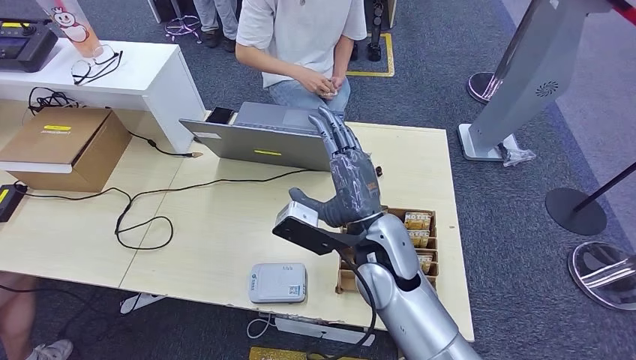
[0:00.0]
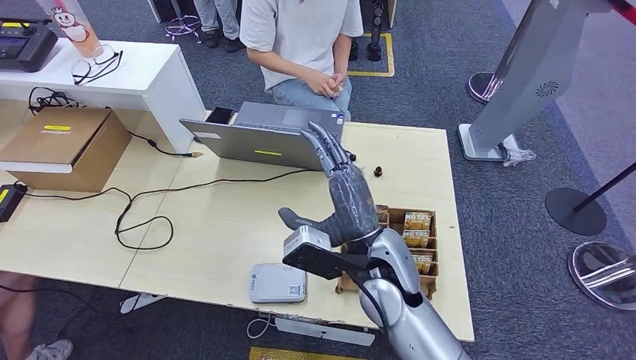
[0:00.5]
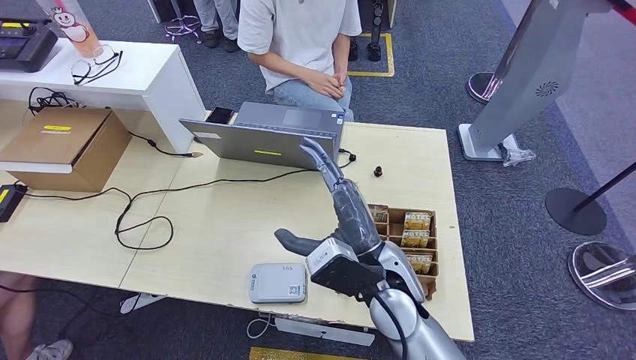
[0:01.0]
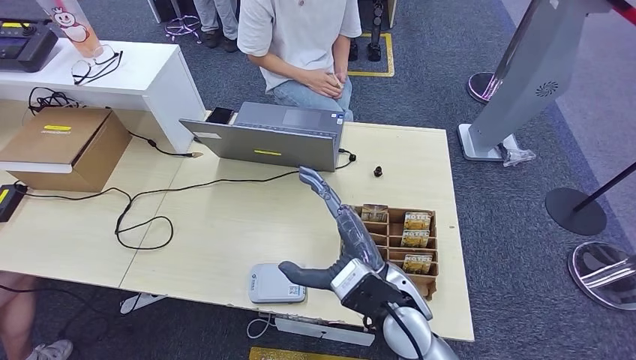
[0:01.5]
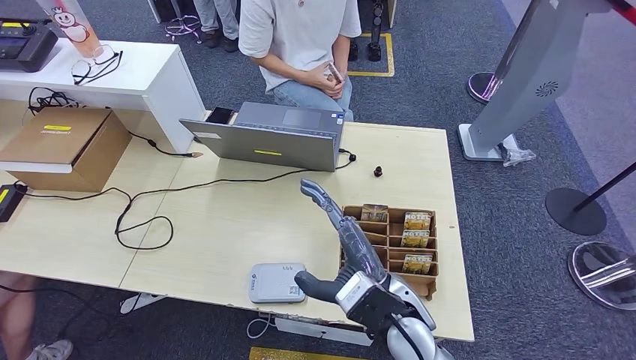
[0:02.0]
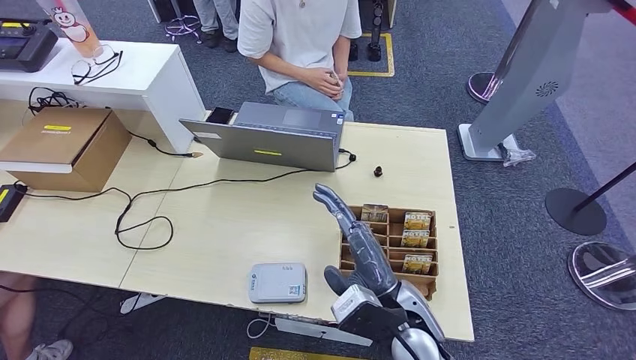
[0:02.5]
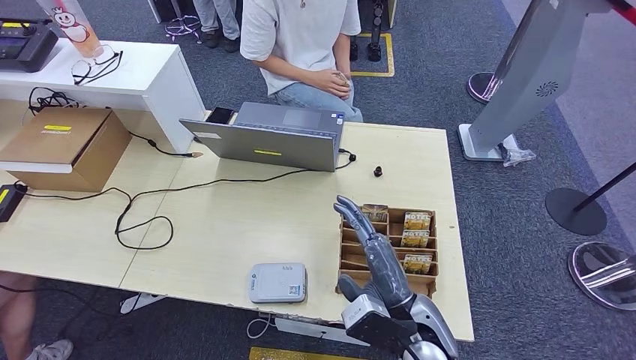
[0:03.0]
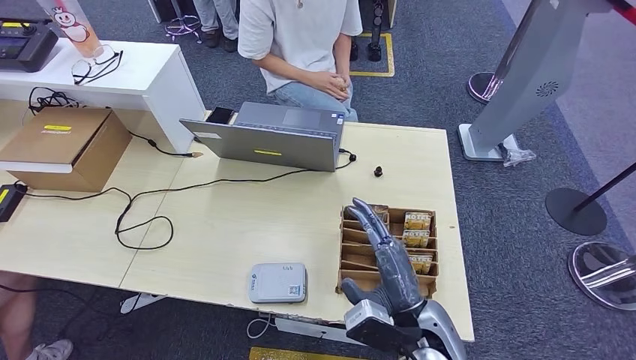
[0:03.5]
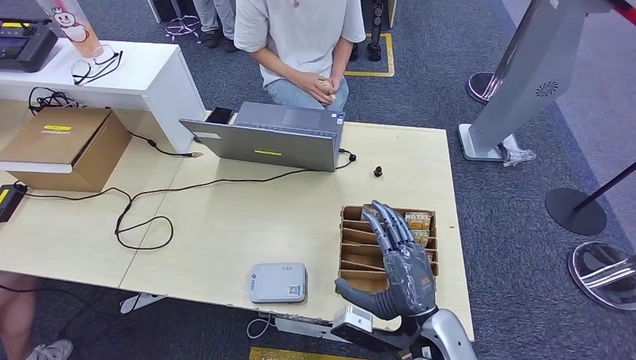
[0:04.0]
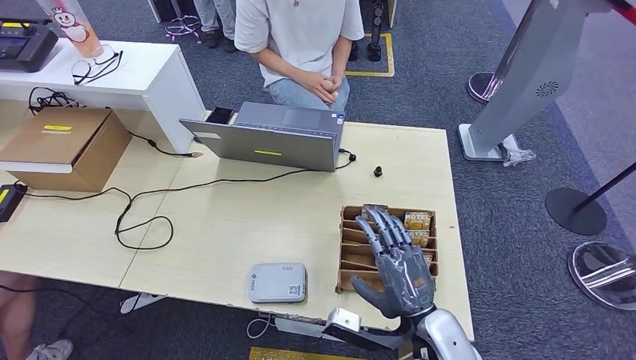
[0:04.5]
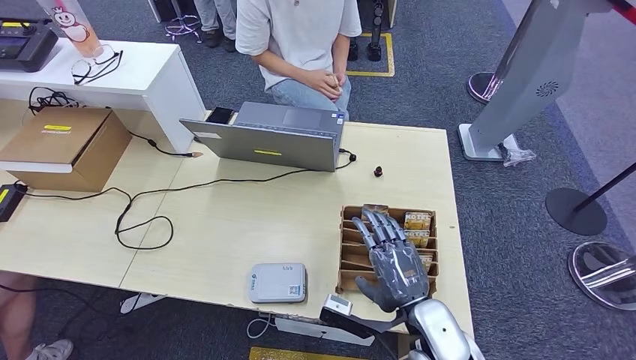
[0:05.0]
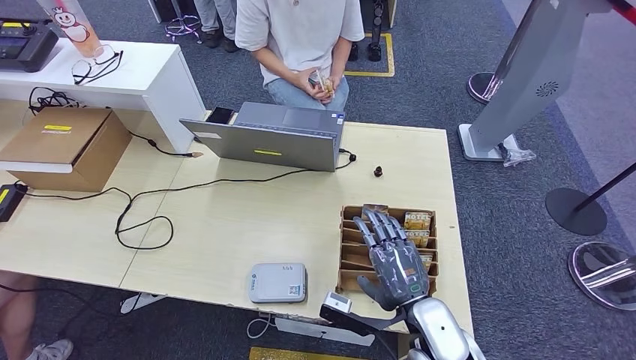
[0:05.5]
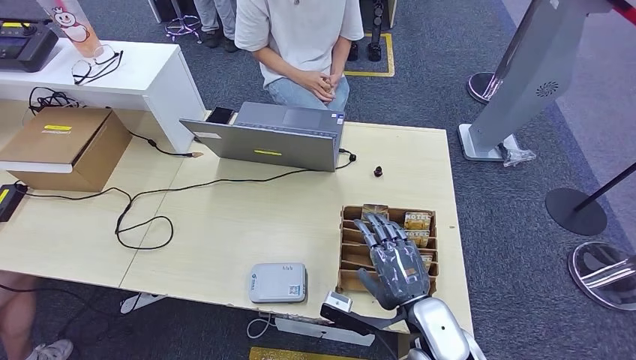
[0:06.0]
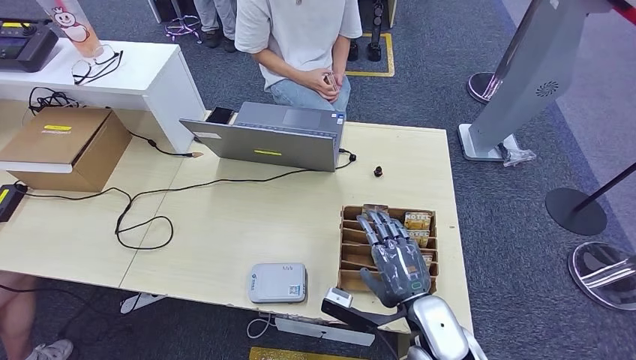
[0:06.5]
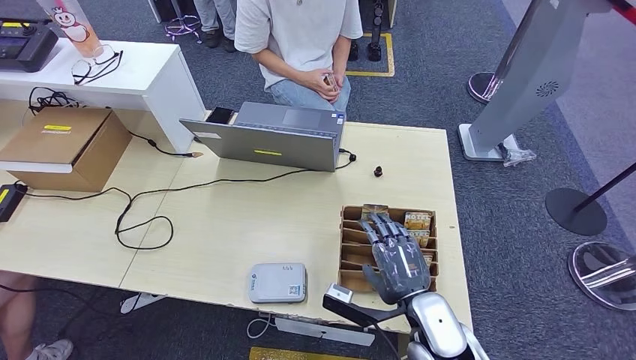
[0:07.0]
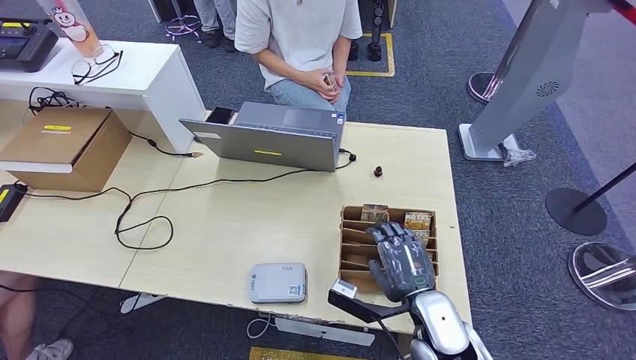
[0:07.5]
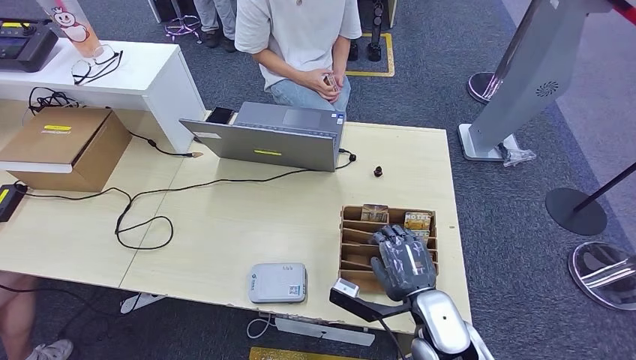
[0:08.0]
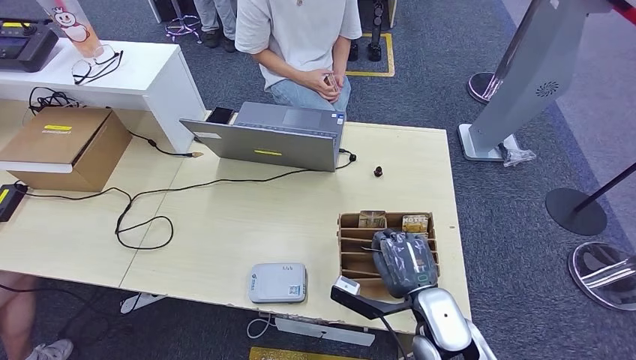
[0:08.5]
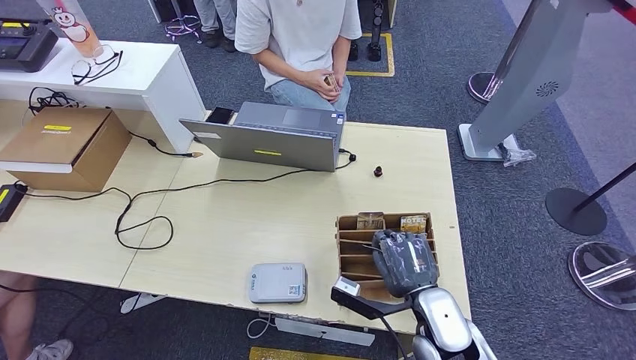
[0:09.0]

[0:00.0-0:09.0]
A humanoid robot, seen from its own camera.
0:00.0 to 0:02.0: The right hand heads backward, covering roughly 5 cm.
0:02.0 to 0:04.5: The right hand heads to the right and downward, covering some 10 cm.
0:04.5 to 0:07.0: There are only small adjustments of the hands.
0:07.0 to 0:09.0: The hands move only a little.

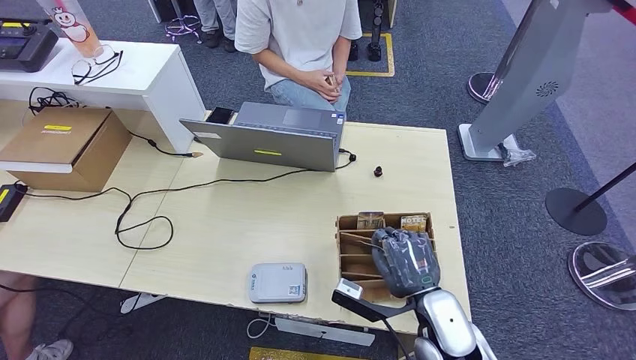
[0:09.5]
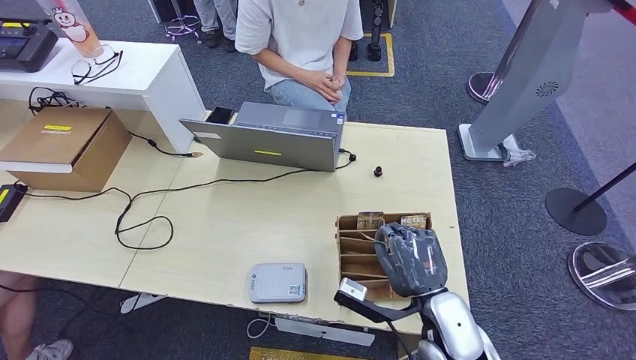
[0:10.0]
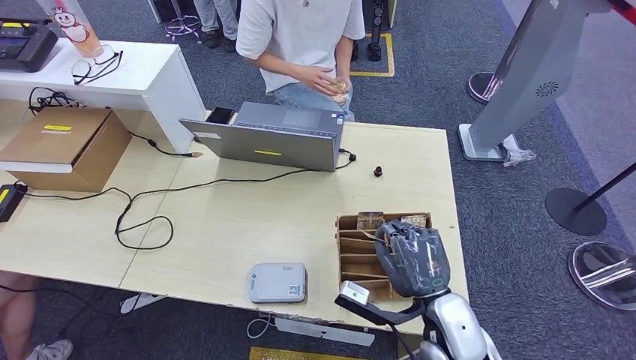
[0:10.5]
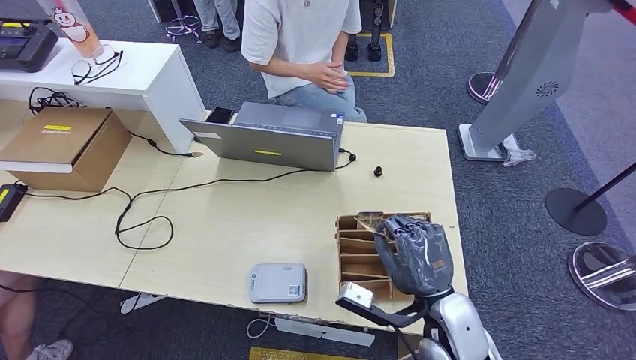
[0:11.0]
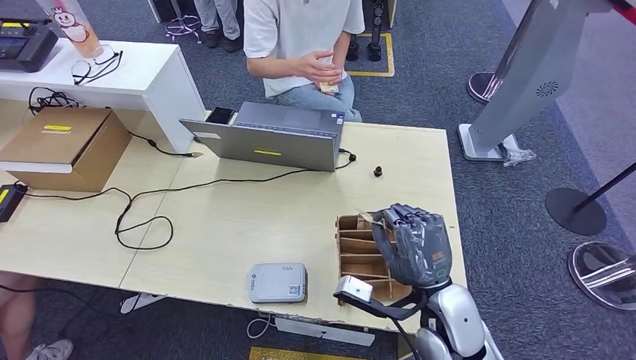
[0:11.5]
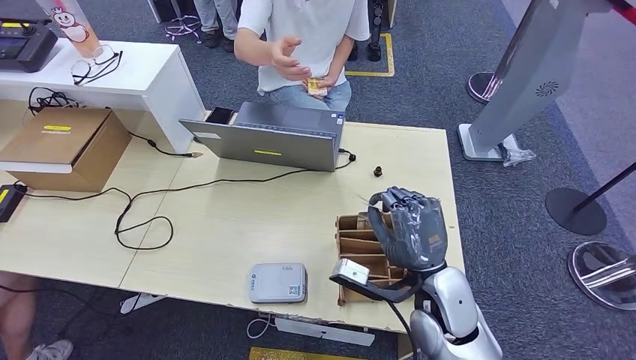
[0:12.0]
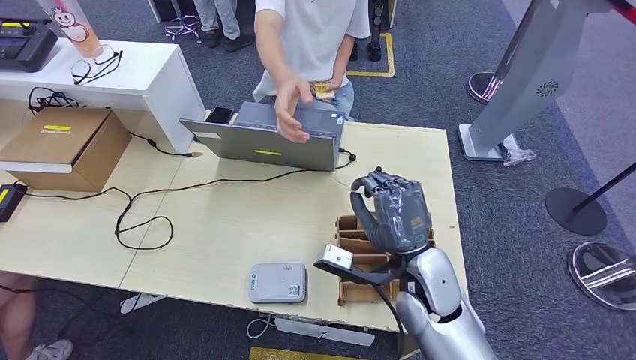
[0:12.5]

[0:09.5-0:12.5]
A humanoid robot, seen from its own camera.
Step, 0:10.5 to 0:12.5: Hand the room key to the person.
0:09.5 to 0:11.0: There are only small adjustments of the hands.
0:11.0 to 0:12.5: The right hand goes some 5 cm forward.
